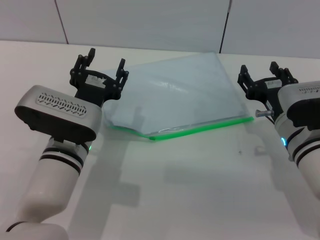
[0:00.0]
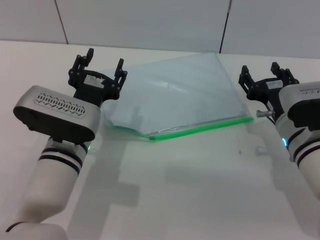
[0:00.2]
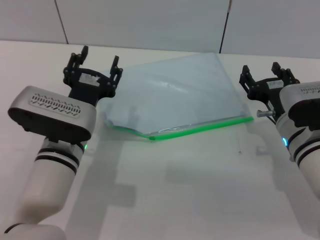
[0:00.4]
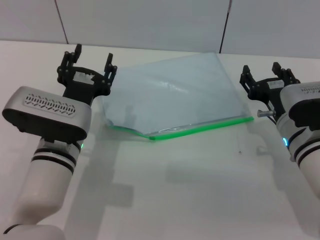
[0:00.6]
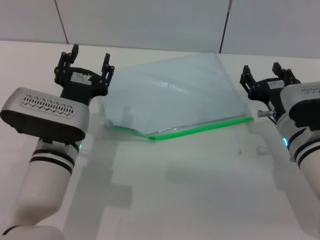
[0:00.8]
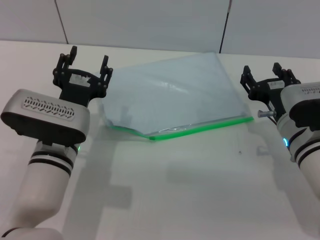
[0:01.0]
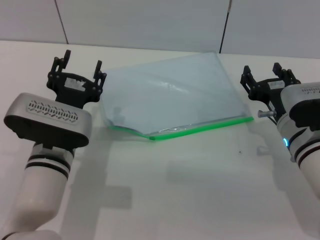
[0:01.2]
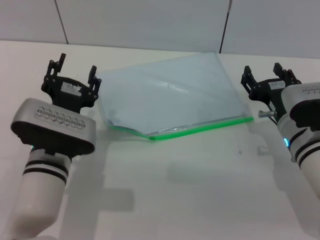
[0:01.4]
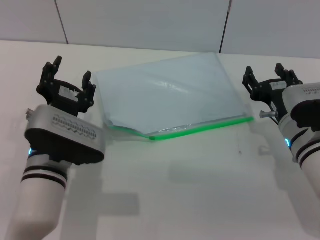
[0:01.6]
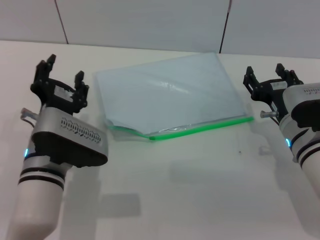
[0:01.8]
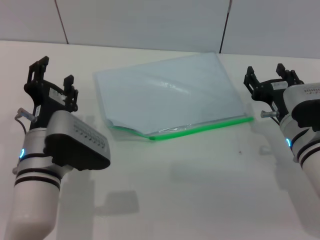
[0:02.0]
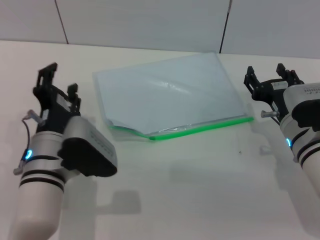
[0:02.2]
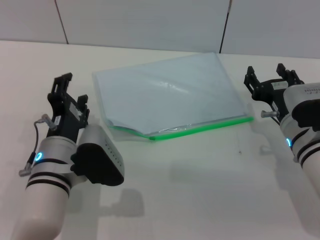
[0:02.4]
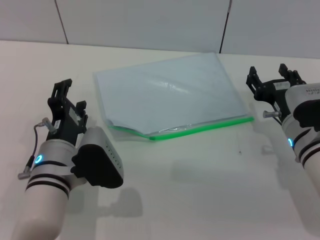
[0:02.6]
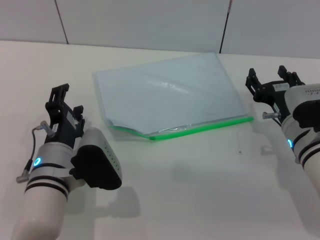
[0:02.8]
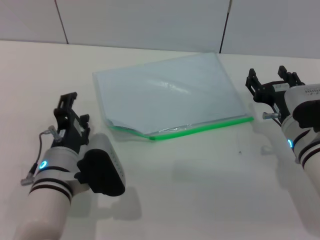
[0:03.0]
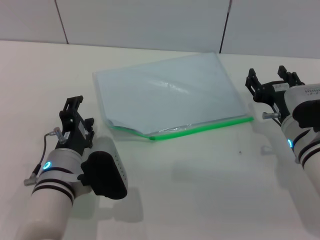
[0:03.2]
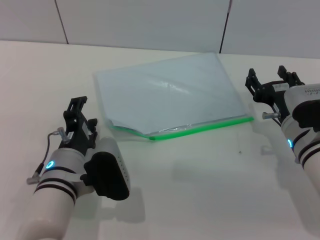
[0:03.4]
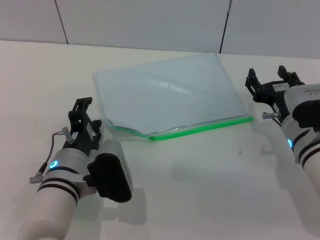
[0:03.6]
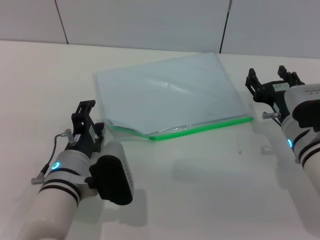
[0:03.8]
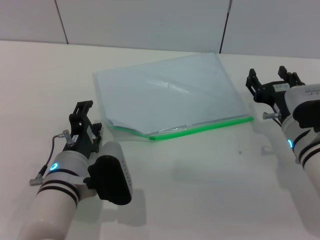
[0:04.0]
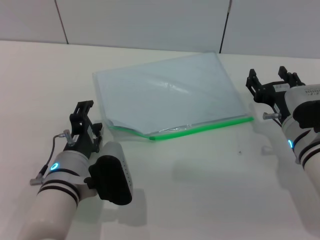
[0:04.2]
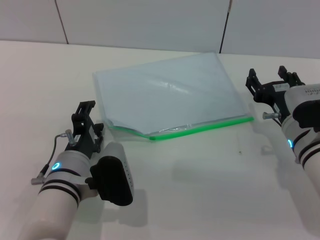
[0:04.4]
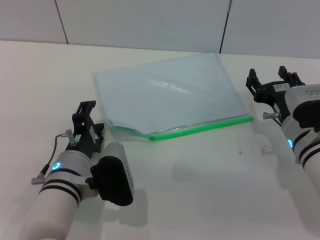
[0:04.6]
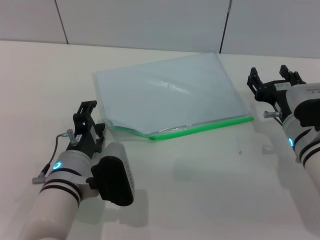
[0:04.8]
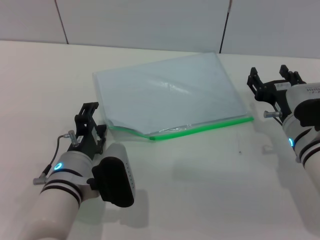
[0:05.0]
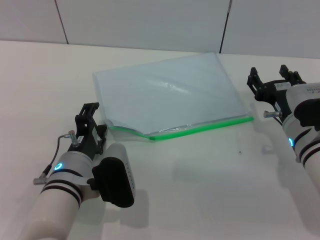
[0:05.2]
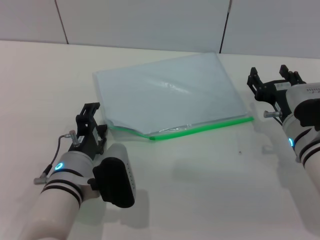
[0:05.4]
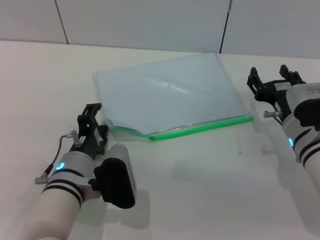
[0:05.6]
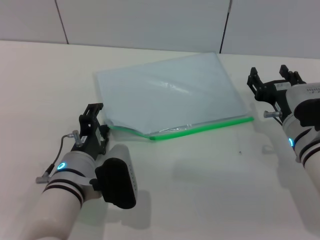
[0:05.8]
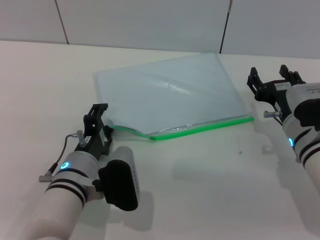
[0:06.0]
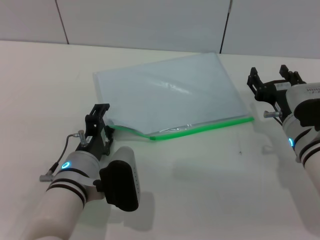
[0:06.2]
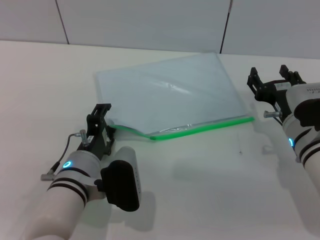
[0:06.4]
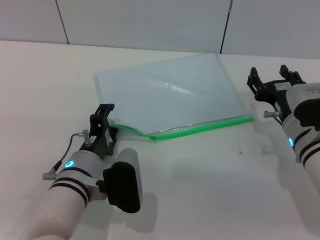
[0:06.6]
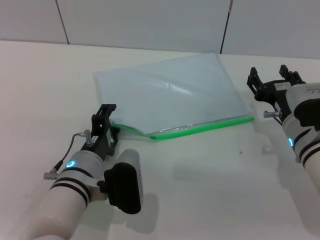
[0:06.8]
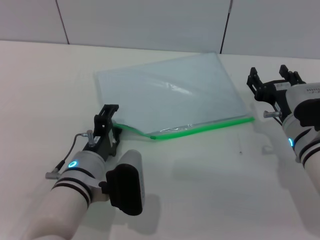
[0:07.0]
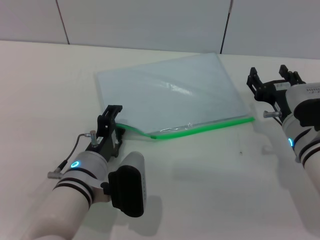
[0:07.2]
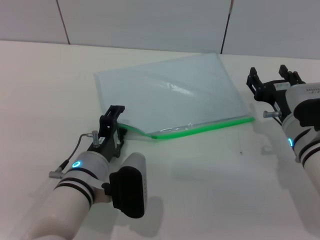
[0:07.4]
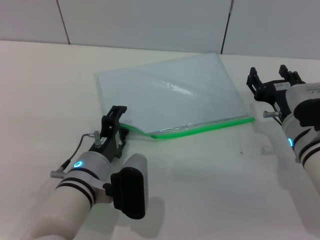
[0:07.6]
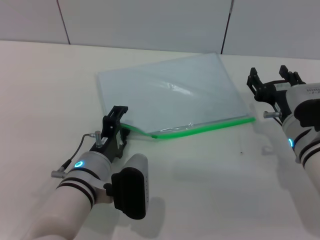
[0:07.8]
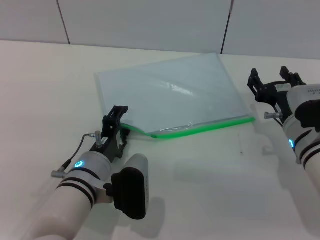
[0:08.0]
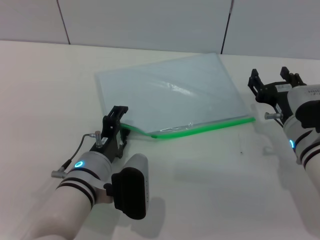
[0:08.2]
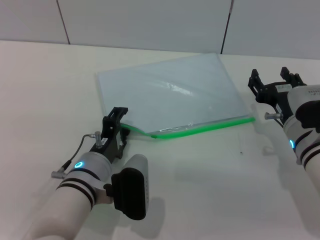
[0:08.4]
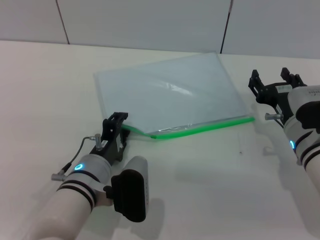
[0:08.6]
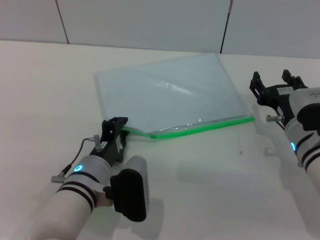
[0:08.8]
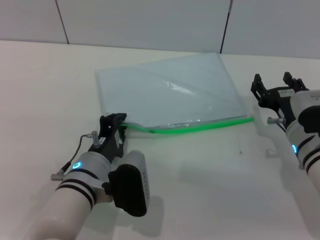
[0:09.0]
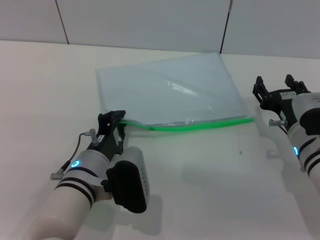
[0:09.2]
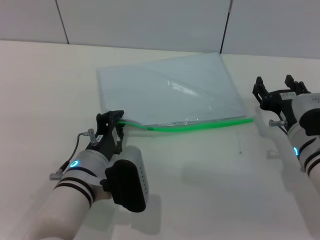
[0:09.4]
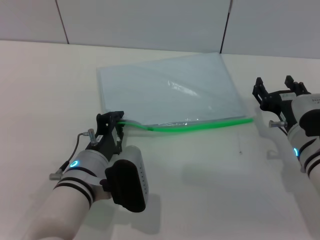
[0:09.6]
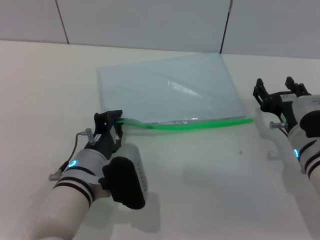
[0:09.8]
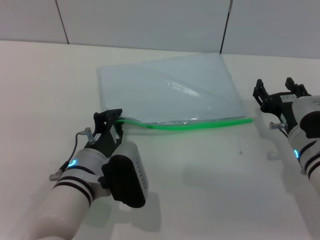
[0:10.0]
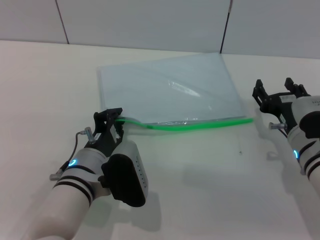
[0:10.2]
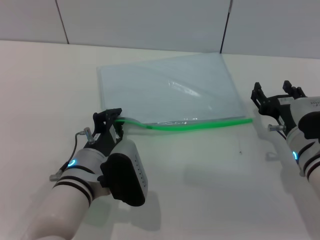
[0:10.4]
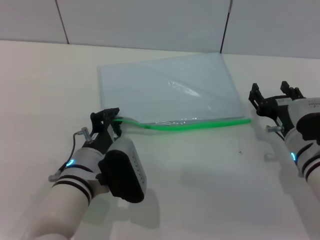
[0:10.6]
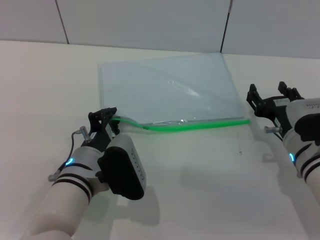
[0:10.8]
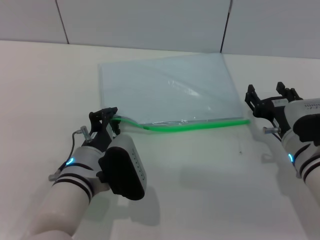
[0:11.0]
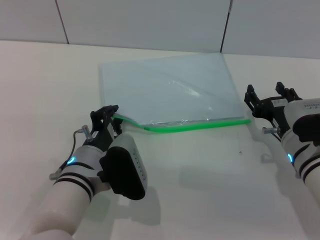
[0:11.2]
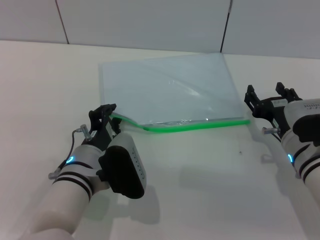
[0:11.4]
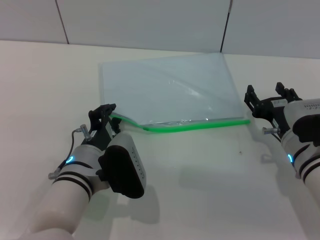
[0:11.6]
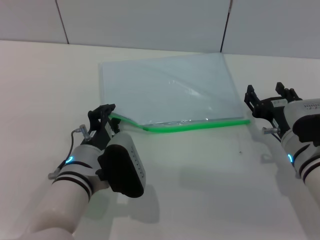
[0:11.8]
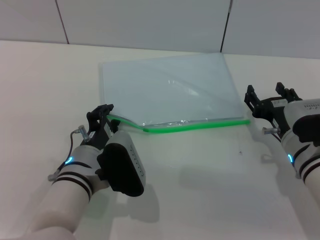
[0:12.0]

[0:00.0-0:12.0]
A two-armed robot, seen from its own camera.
0:03.0 to 0:04.4: The grippers move only a little.
0:04.4 to 0:06.0: The two grippers keep their place.
0:06.0 to 0:07.6: The grippers move only a little.
0:07.6 to 0:09.0: The left gripper closes.
0:09.0 to 0:12.0: The grippers stay close to where they were, moving slightly.

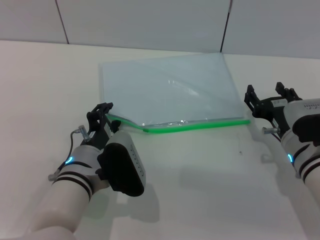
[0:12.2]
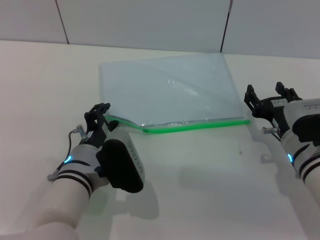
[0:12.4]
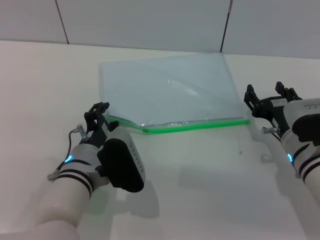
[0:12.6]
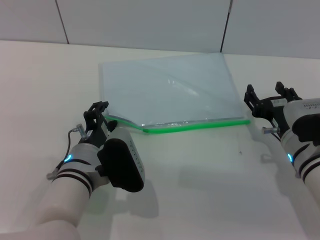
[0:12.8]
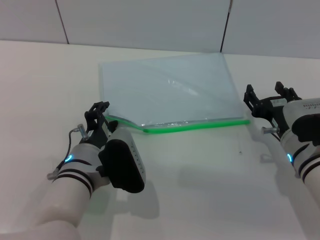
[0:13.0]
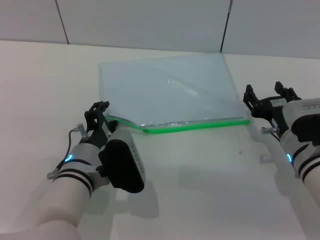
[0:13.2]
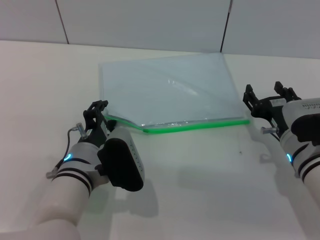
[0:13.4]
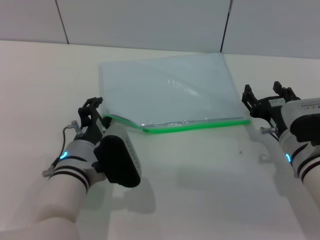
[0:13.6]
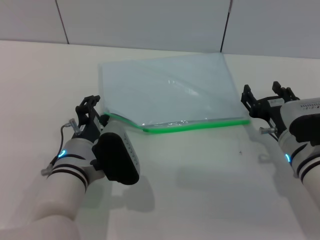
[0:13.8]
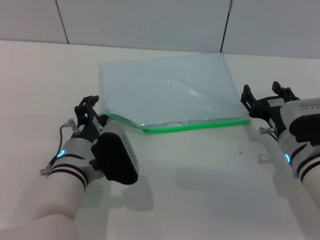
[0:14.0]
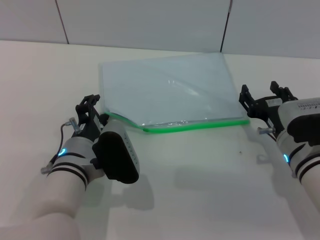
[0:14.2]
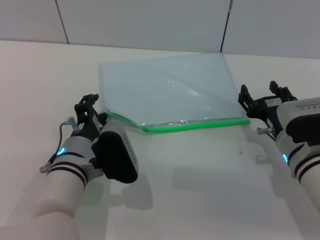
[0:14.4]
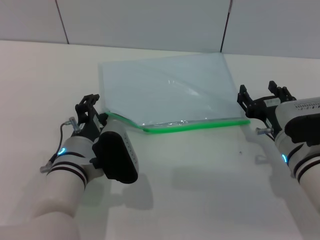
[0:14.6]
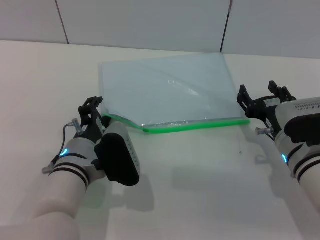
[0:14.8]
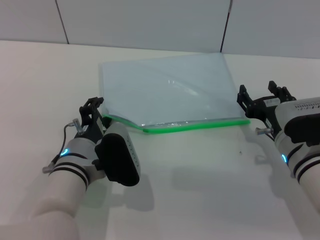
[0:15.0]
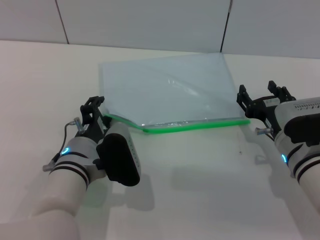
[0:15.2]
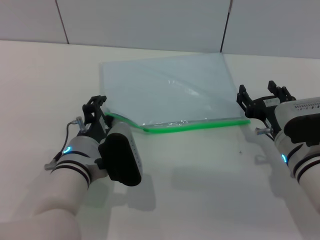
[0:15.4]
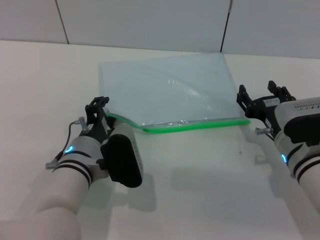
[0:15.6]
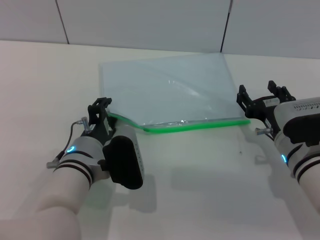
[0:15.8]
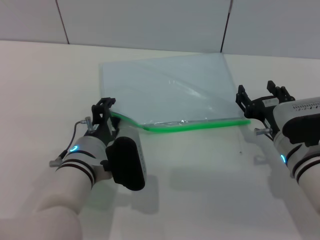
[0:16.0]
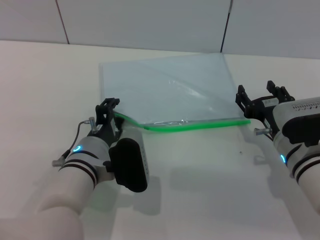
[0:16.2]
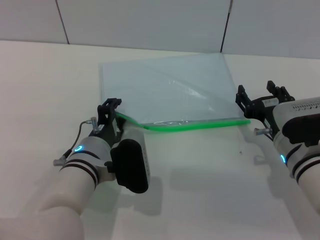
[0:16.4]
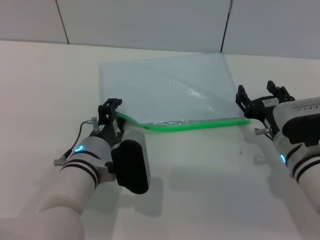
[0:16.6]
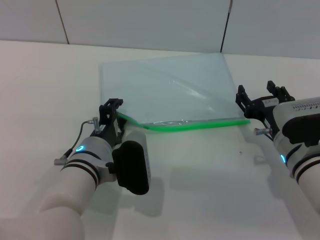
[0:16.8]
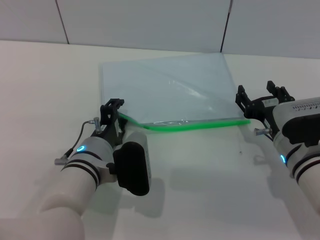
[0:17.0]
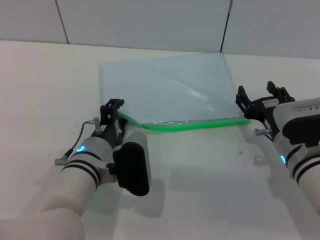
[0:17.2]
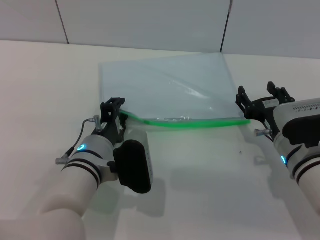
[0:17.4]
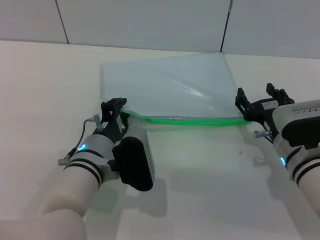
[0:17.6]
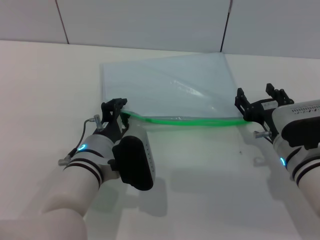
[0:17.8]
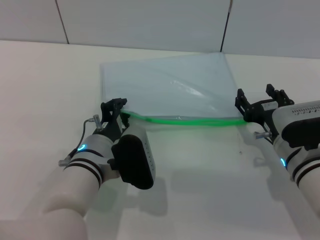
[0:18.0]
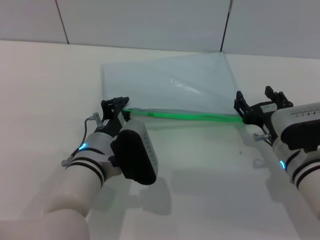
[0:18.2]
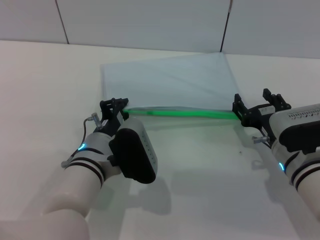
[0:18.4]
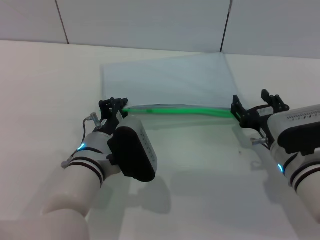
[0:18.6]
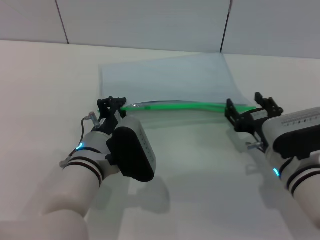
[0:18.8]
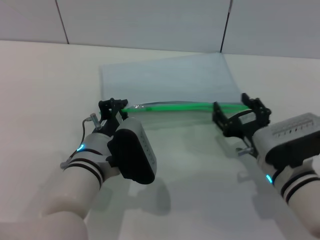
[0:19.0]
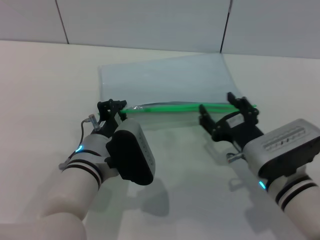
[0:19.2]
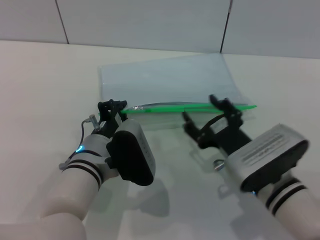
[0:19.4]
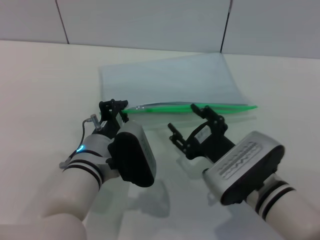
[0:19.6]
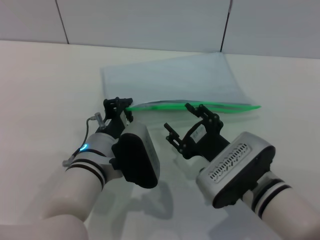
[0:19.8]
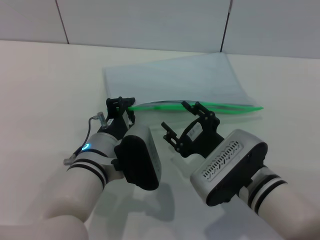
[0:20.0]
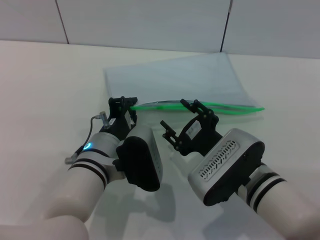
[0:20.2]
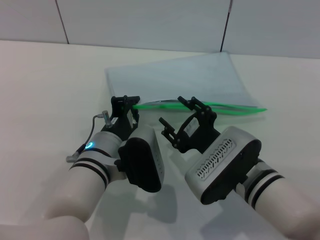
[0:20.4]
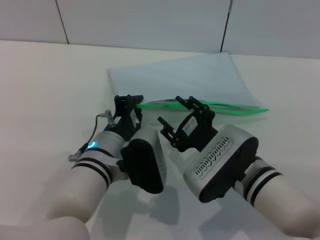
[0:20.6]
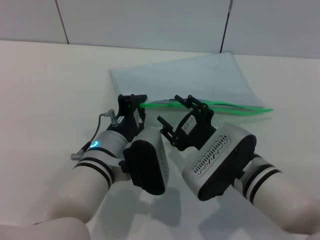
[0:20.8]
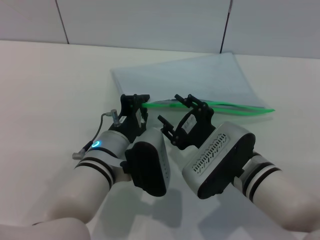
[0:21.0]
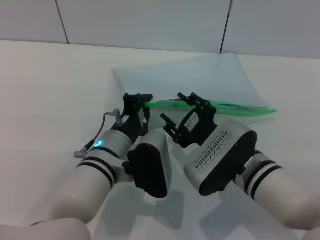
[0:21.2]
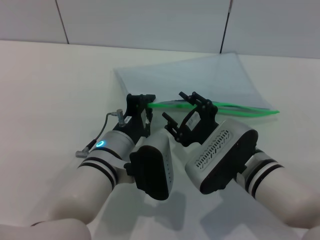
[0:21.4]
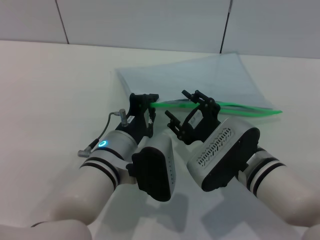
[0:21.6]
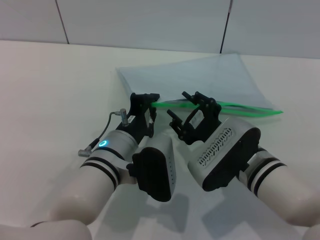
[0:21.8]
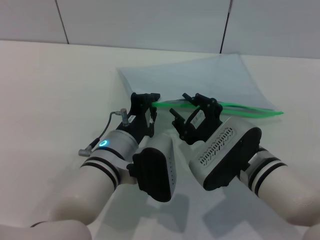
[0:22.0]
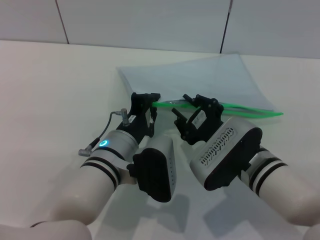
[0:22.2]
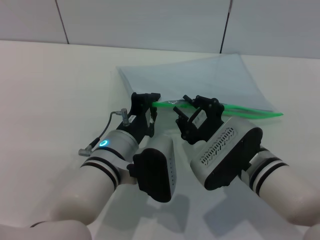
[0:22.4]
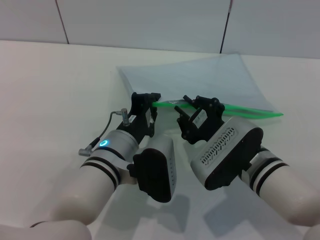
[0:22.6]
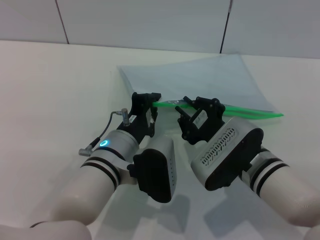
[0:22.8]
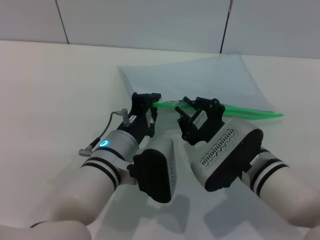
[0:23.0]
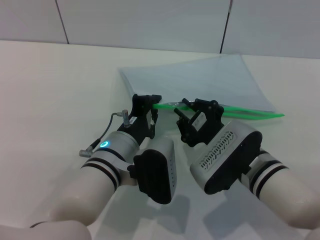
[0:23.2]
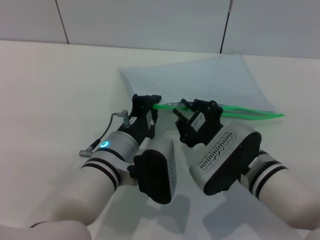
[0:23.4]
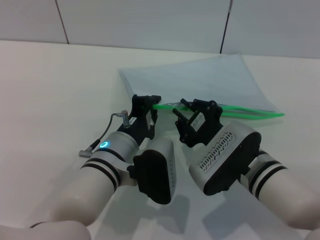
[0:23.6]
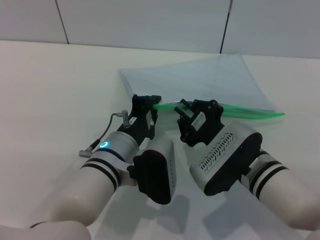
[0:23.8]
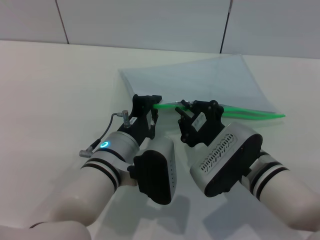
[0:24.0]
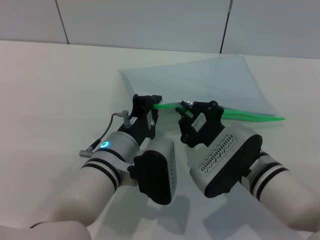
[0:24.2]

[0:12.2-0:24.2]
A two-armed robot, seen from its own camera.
Step, 0:12.2 to 0:19.4: Pick up the transparent plastic bag with the left gripper.
0:12.2 to 0:13.8: Both grippers stay about where they are.
0:13.8 to 0:15.2: Neither gripper changes place.
0:15.2 to 0:16.6: The grippers make only small movements.
0:16.6 to 0:18.2: The left gripper closes up.
0:18.2 to 0:19.8: The left gripper closes up; the right gripper moves to the left, roughly 5 cm.
0:19.8 to 0:21.2: There are only small adjustments of the grippers.
0:21.2 to 0:22.6: The right gripper closes.
0:22.6 to 0:24.2: Neither gripper changes place.
